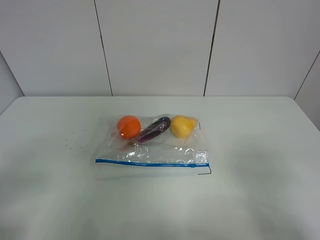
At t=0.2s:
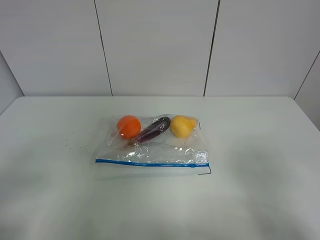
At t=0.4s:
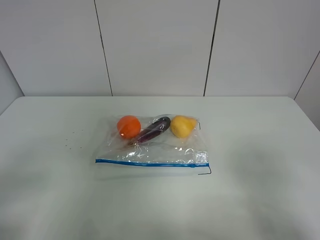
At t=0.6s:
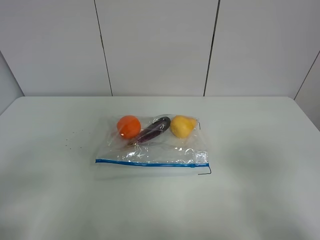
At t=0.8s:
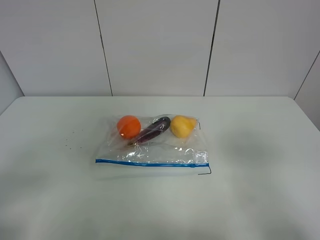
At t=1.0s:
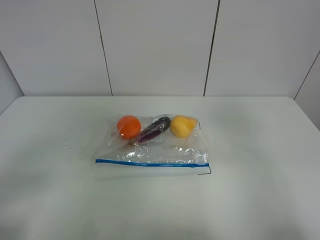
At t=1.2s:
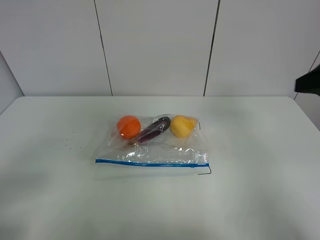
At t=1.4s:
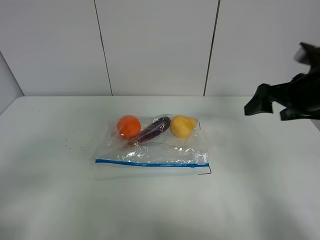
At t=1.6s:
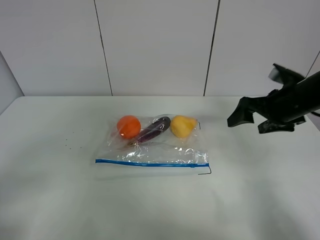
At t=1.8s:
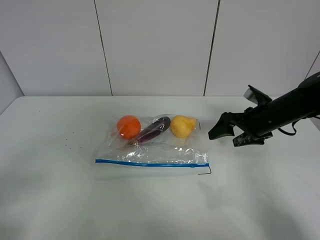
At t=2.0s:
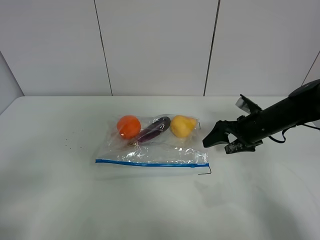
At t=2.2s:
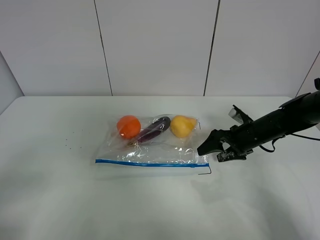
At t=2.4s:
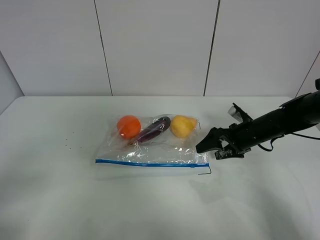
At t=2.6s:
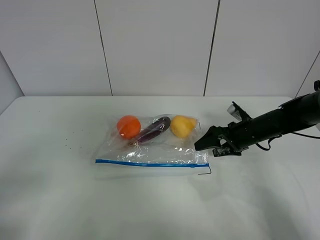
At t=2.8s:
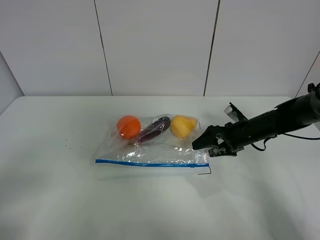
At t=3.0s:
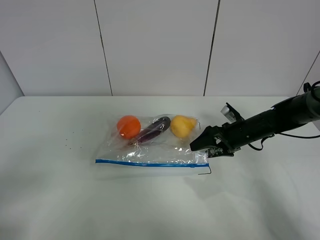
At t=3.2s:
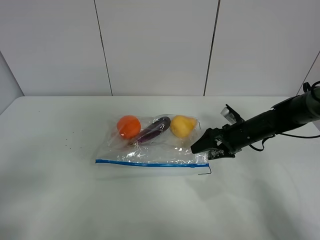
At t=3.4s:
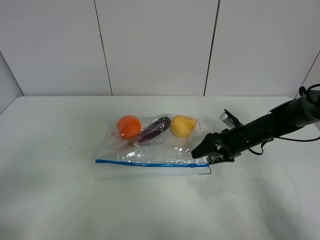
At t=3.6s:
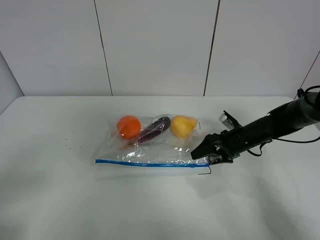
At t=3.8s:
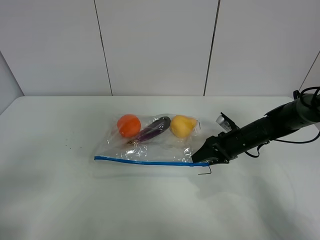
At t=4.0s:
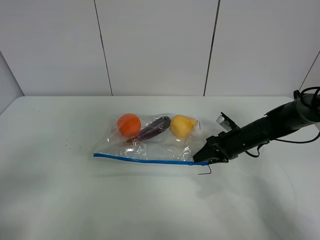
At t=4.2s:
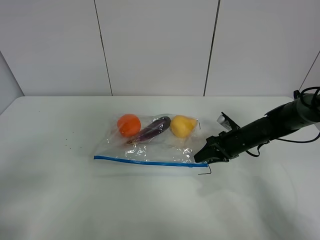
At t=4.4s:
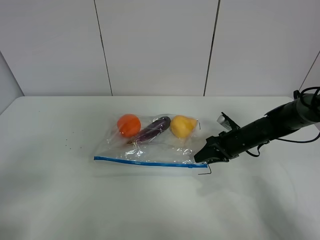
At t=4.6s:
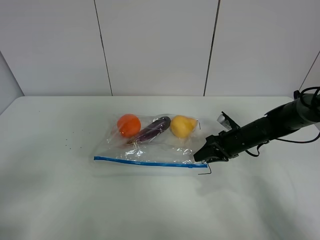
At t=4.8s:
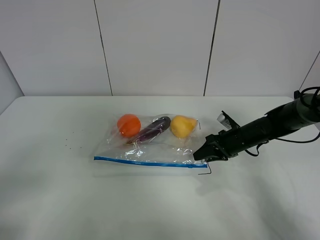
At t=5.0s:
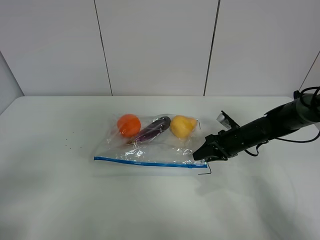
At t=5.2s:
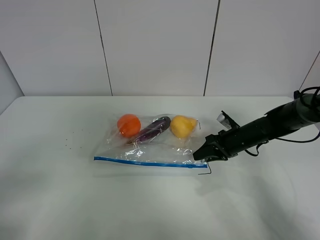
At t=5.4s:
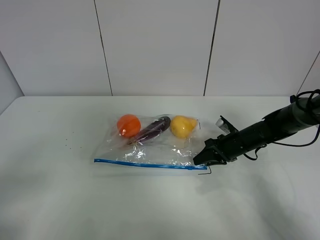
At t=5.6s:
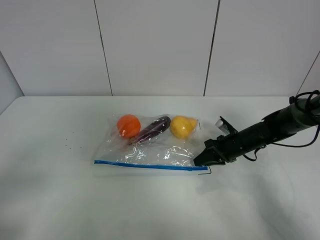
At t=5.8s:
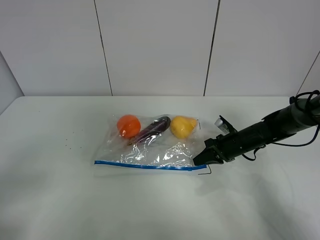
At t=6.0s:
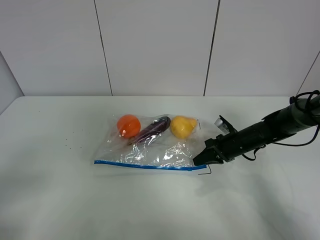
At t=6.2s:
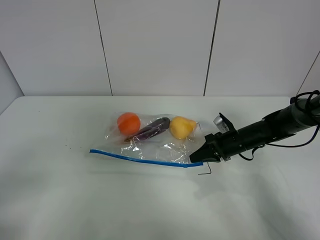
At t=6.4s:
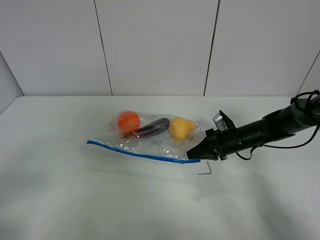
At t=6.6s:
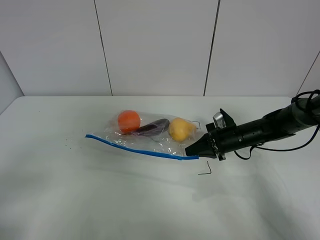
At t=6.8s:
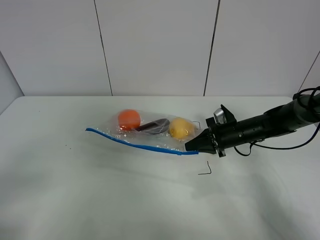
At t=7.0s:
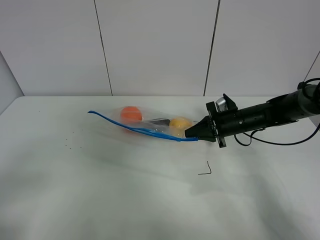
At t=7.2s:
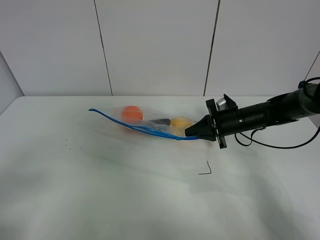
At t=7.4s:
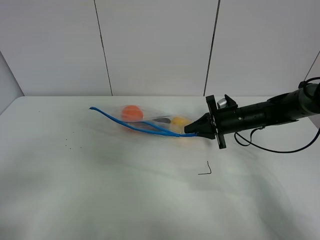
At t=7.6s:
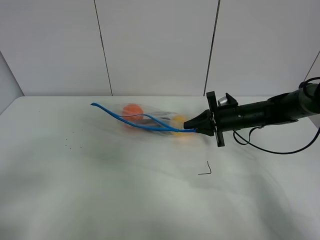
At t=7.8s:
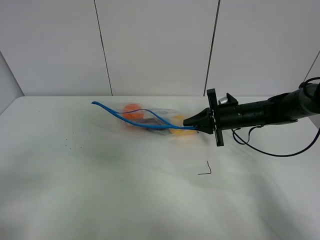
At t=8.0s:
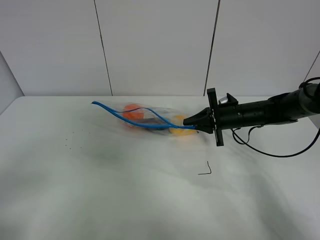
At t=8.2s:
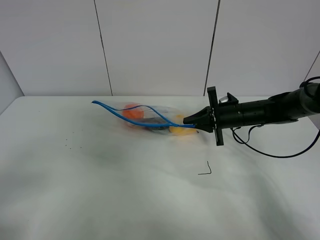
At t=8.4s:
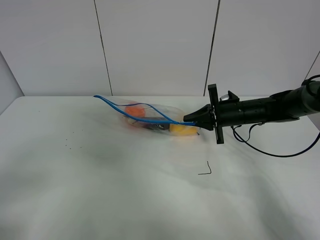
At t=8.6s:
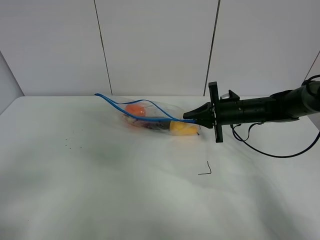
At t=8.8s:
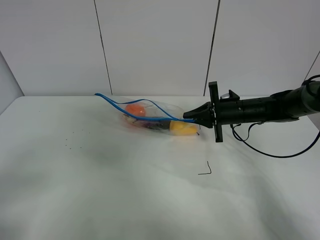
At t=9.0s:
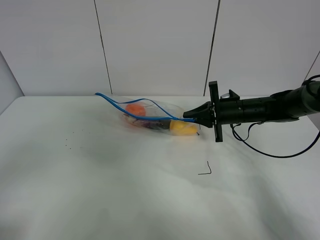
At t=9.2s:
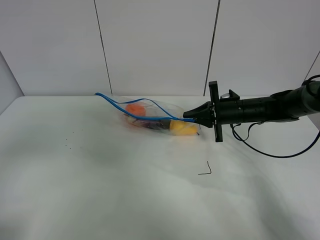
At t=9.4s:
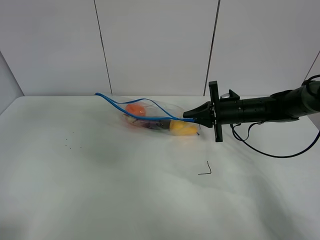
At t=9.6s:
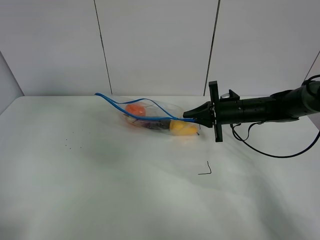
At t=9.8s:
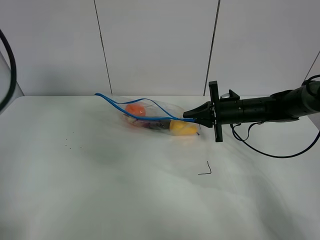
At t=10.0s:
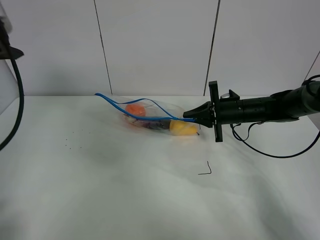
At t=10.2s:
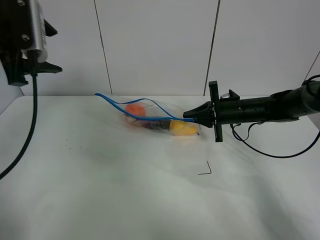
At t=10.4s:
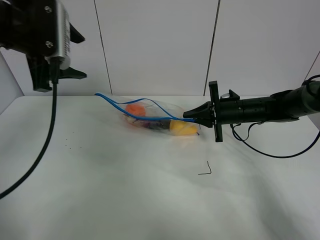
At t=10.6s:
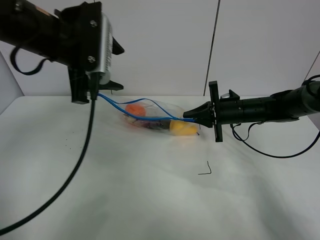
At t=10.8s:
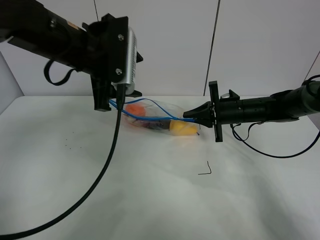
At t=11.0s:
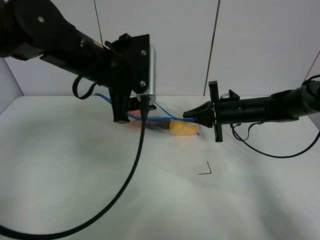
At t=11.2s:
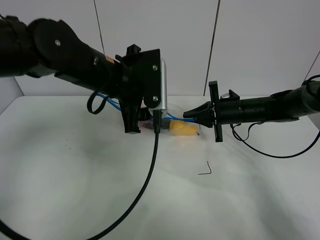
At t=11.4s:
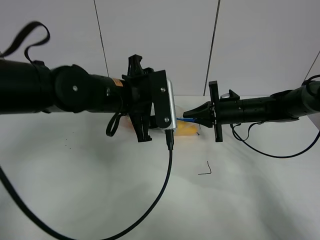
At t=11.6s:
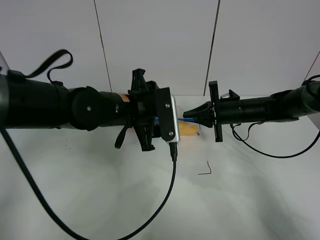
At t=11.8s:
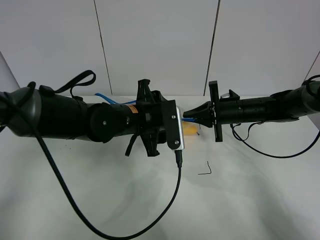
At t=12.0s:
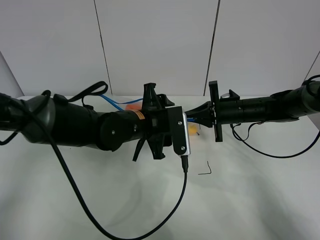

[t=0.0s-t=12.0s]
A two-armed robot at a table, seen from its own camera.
Step, t=0.0s to t=5.8s: Grasp the fruit bag with right gripper.
Step, t=6.0s to t=9.2s: Lift the fruit bag with your right gripper.
t=0.0s to t=1.6s: The right gripper moves forward, about 30 cm.
t=1.6s to t=3.0s: The right gripper travels downward by roughly 10 cm.
t=3.0s to t=4.4s: The right gripper closes.
t=4.4s to t=6.0s: The right gripper closes up.
t=6.0s to t=7.6s: The right gripper shifts roughly 5 cm upward.
t=7.6s to t=9.0s: The grippers stay close to where they were, moving slightly.
t=9.0s to t=10.4s: The left gripper is displaced forward by approximately 30 cm.
t=10.4s to t=12.0s: The left gripper shifts some 25 cm downward and to the right.

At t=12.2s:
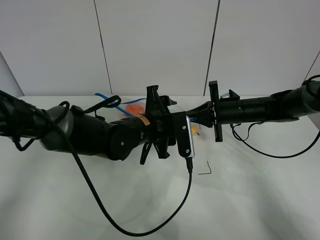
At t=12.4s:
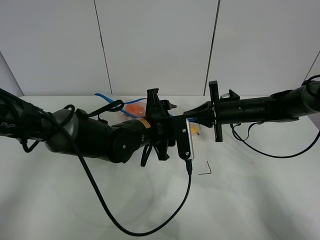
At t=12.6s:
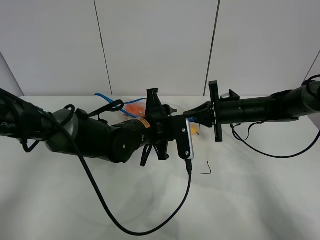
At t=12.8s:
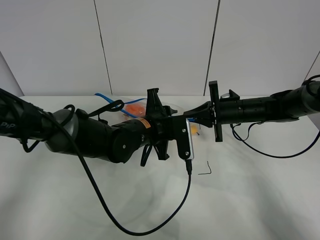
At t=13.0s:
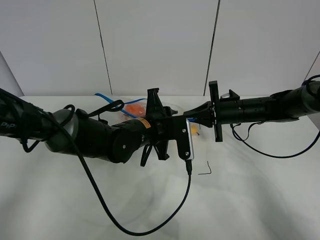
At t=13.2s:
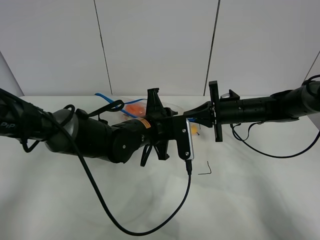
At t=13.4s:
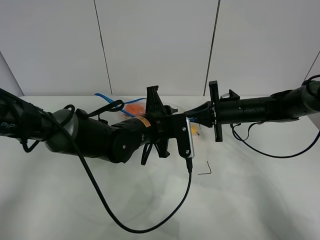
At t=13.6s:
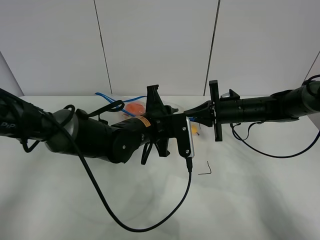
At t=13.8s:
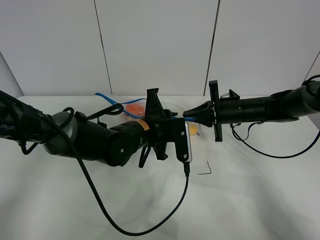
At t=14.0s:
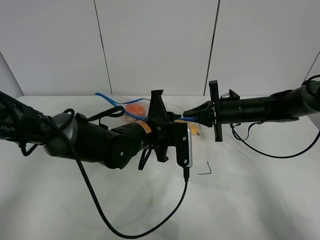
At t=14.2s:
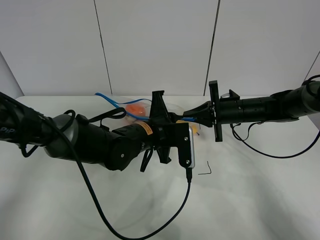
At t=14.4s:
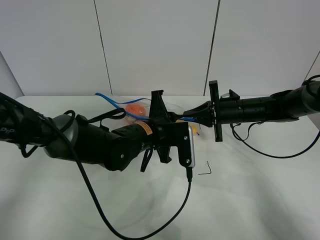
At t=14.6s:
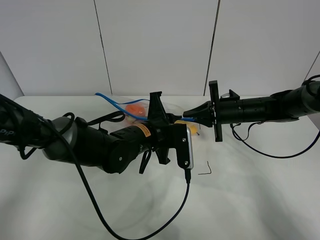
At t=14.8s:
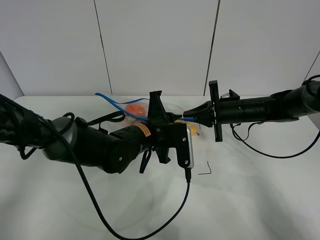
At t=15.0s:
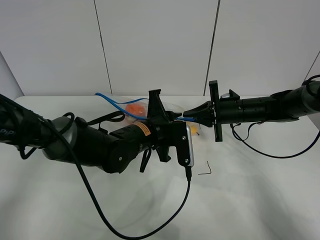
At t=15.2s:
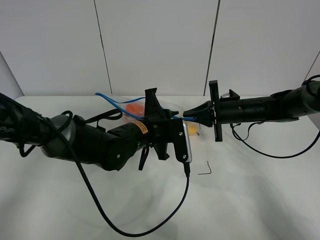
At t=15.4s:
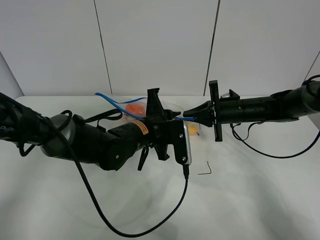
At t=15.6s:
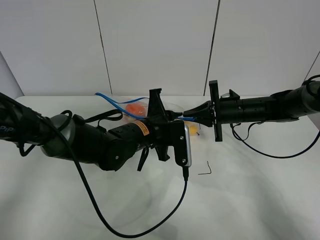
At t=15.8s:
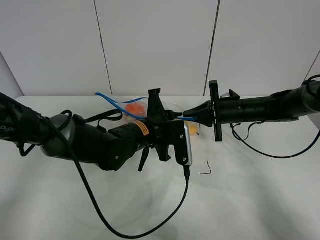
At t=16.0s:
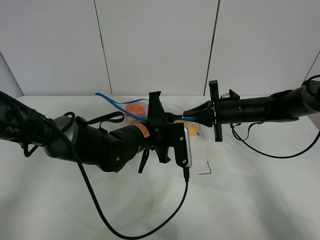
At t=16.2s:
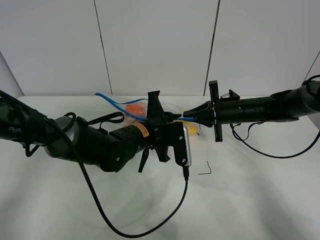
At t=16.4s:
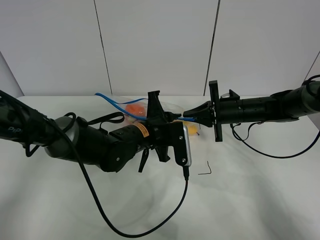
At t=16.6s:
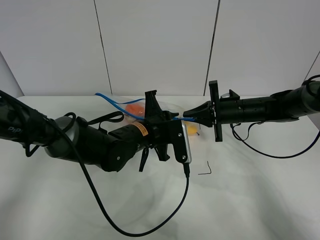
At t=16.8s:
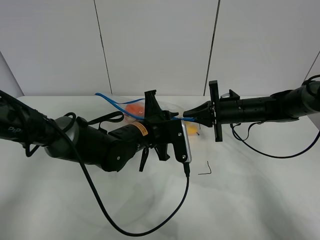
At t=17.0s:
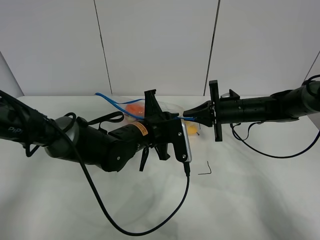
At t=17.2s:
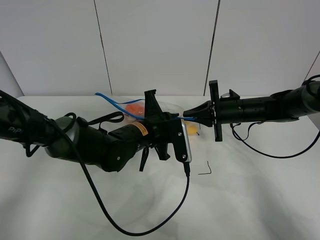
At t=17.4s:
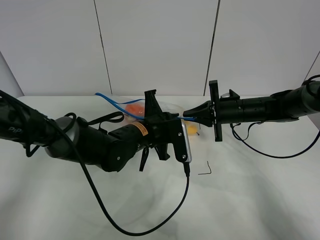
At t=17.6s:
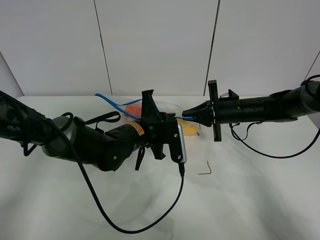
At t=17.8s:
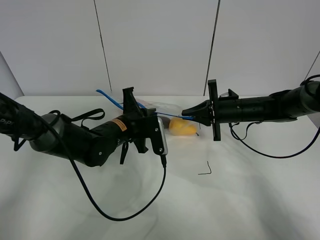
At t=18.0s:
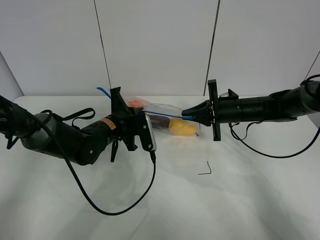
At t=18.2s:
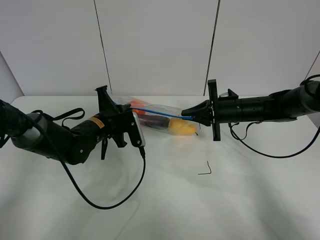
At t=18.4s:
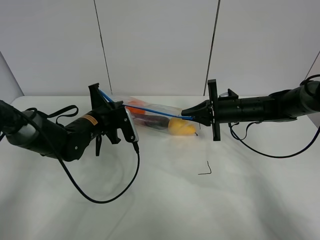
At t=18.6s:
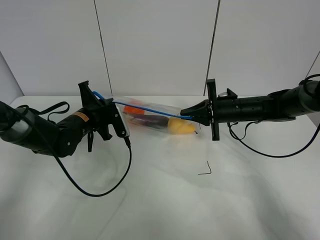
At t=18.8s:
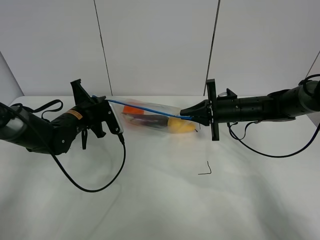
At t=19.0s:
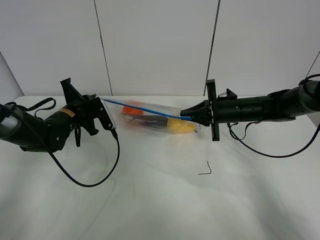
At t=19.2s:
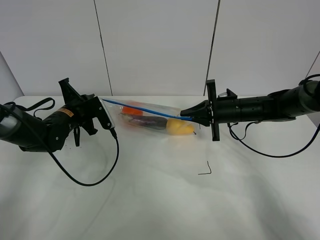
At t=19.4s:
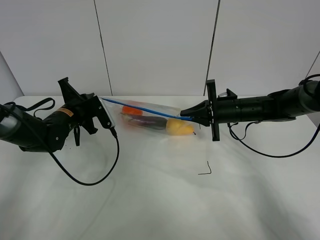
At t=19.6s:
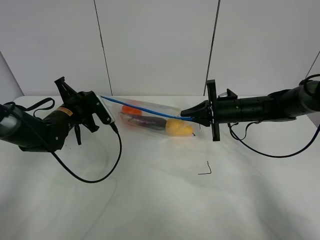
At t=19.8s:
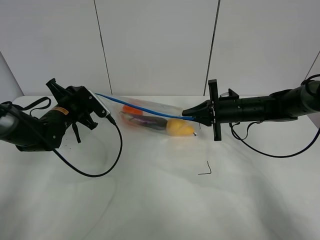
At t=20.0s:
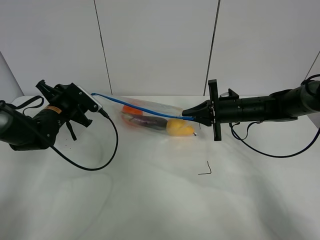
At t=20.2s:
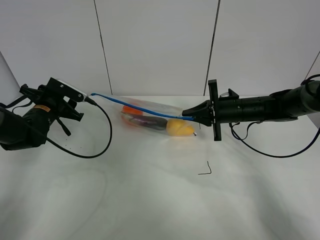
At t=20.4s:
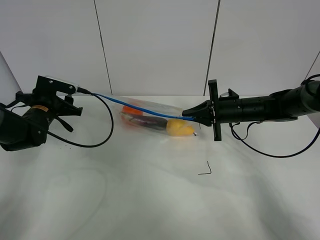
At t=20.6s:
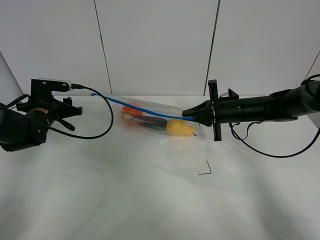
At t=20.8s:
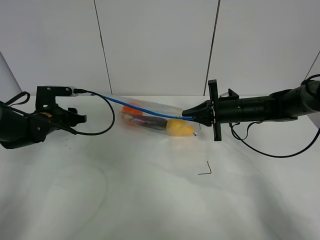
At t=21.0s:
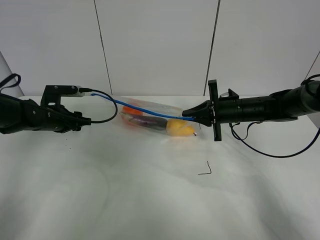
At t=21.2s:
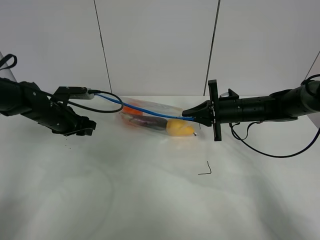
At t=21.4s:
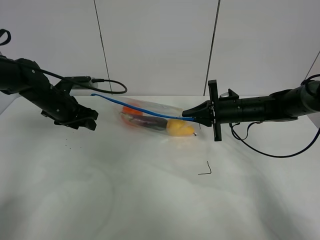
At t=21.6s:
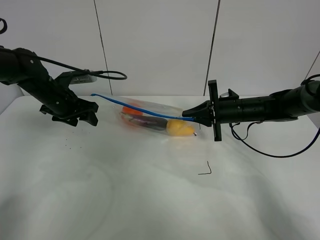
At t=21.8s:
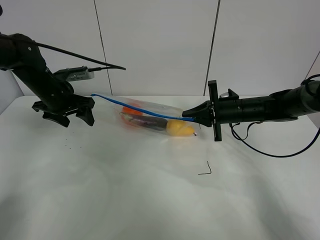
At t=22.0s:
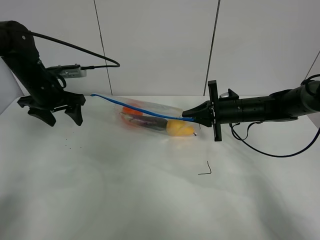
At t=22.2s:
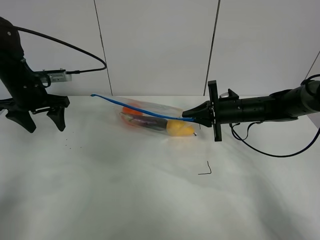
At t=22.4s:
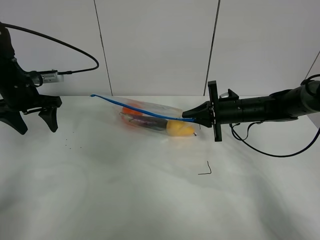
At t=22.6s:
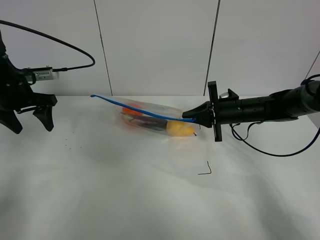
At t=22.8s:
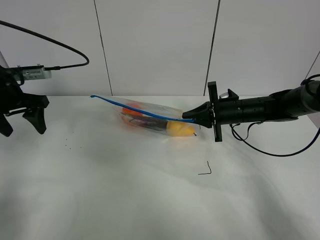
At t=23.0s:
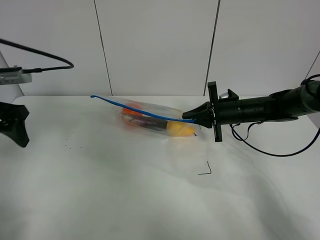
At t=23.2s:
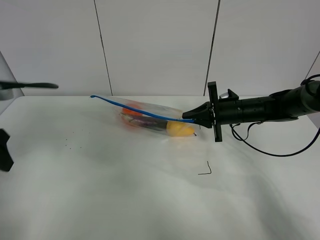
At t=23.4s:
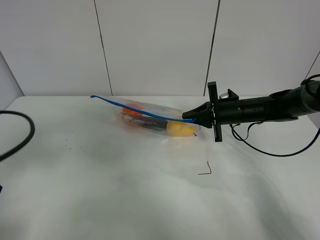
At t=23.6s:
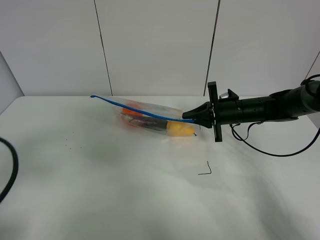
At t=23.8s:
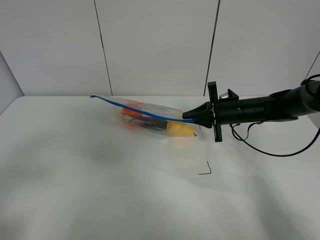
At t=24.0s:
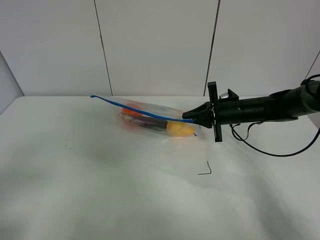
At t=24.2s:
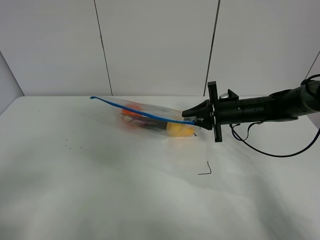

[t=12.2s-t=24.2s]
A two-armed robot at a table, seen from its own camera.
Step, t=12.2s to t=20.0s: Pull the fruit bag with left gripper.
t=12.2s to t=13.8s: The left gripper closes its fingers.
t=13.8s to t=16.6s: The grippers make only small movements.
t=16.6s to t=18.2s: The left gripper moves to the left, roughly 10 cm.
t=18.2s to t=19.8s: The left gripper goes roughly 10 cm to the left, and opens.
t=21.2s to t=22.6s: The left gripper moves upward and to the left, about 10 cm.
t=22.6s to t=24.2s: The left gripper goes roughly 35 cm backward.
